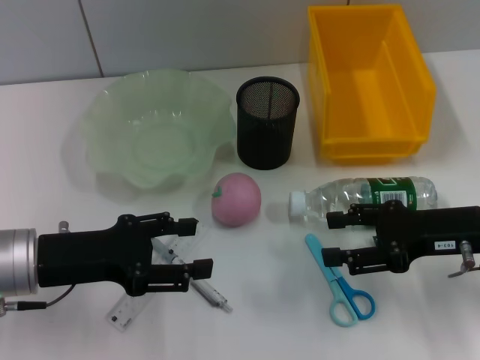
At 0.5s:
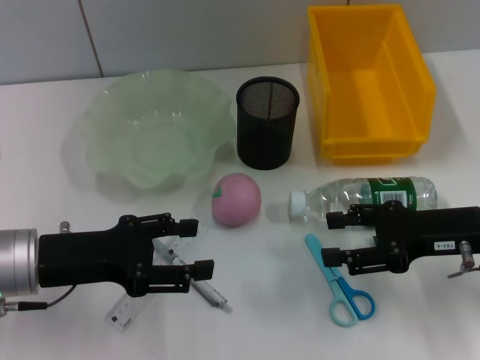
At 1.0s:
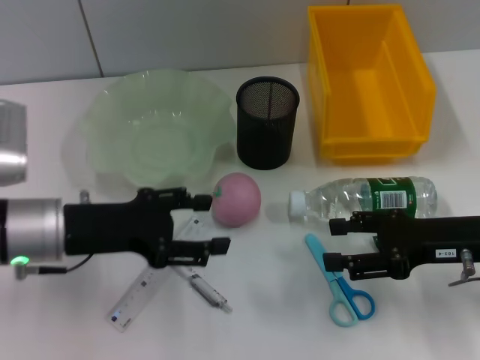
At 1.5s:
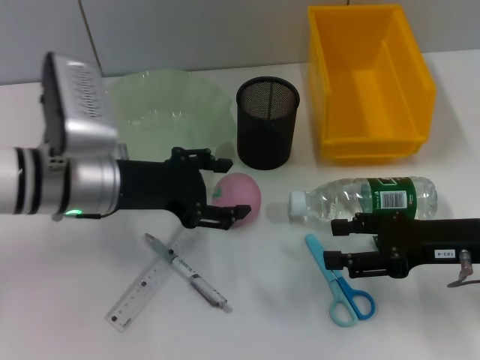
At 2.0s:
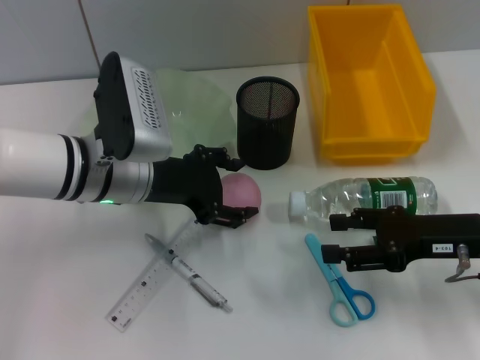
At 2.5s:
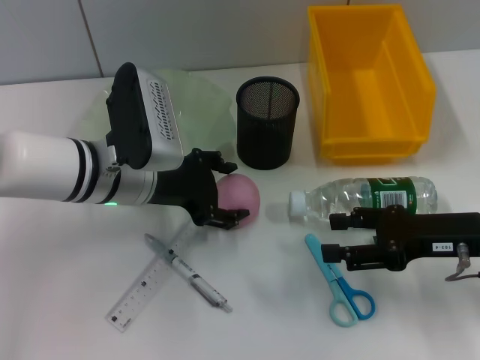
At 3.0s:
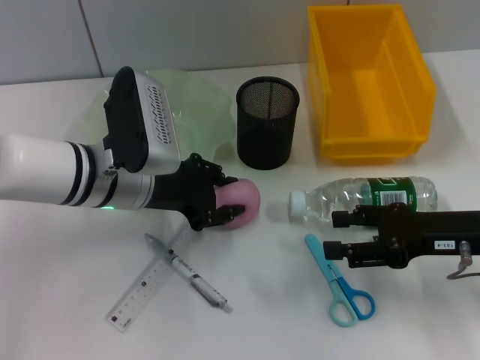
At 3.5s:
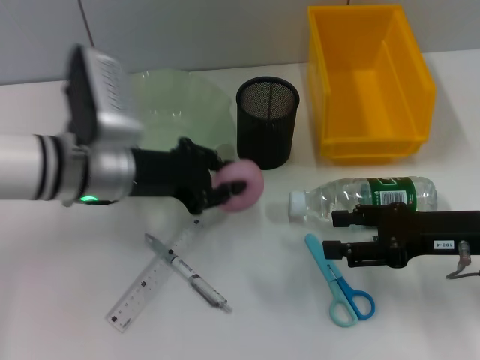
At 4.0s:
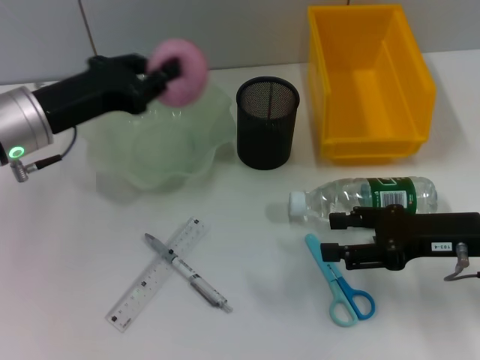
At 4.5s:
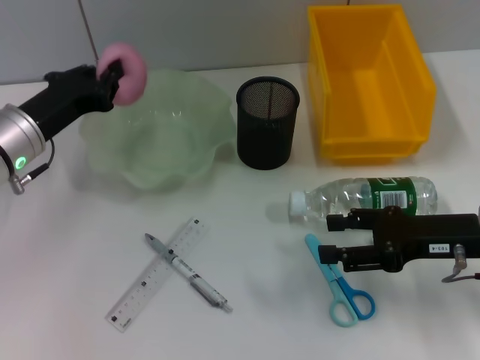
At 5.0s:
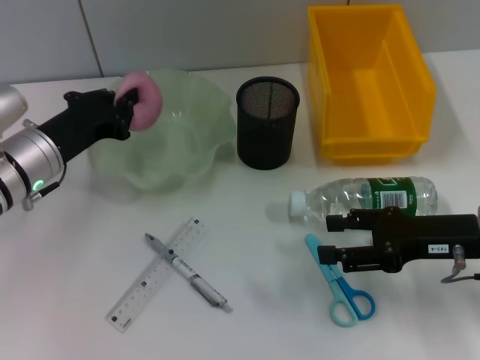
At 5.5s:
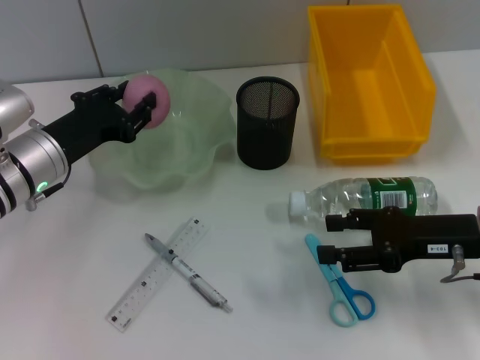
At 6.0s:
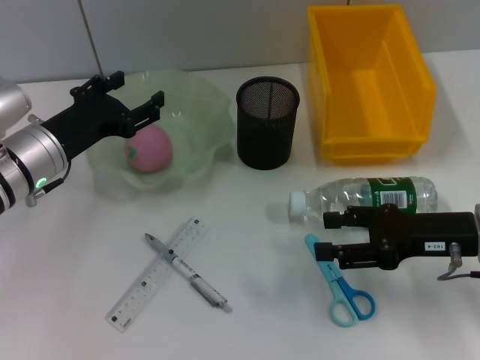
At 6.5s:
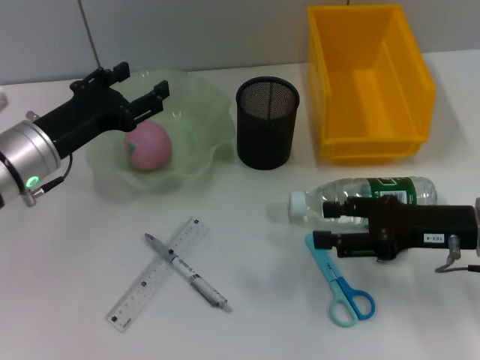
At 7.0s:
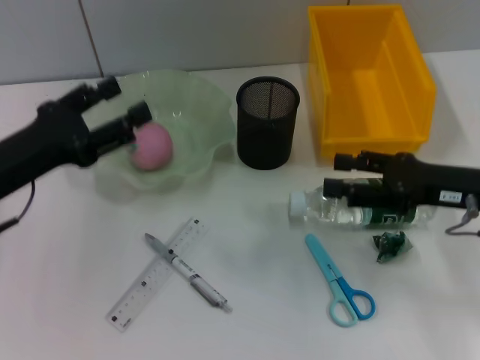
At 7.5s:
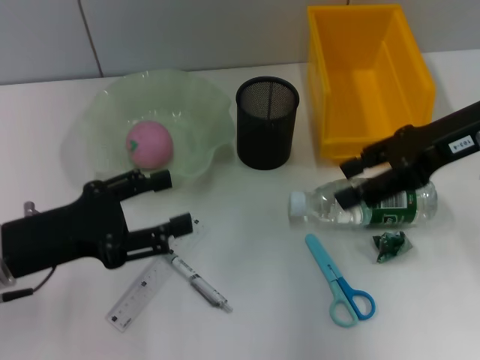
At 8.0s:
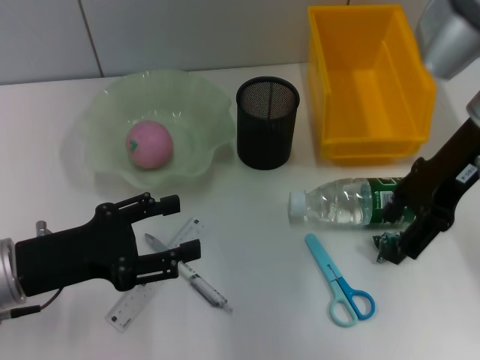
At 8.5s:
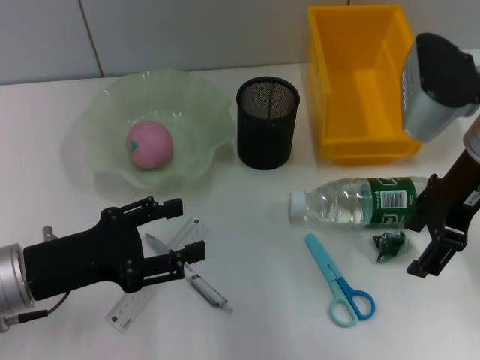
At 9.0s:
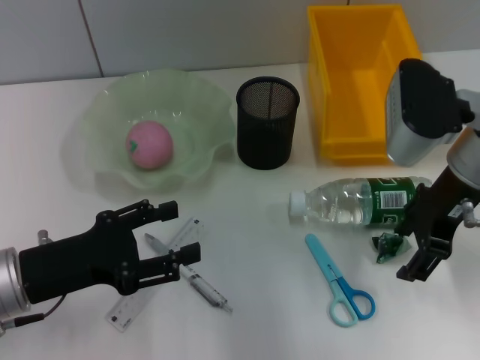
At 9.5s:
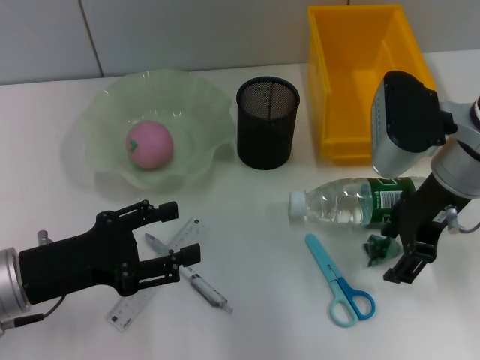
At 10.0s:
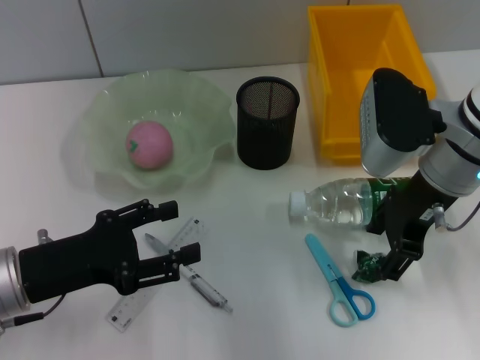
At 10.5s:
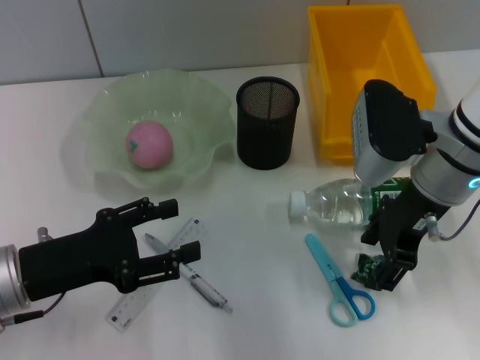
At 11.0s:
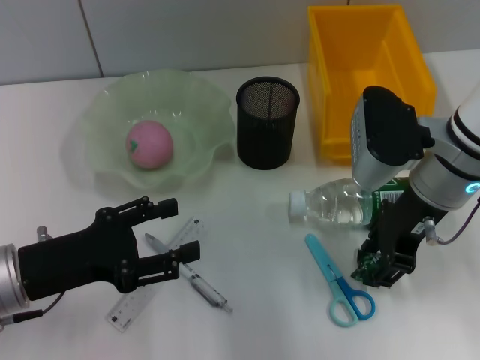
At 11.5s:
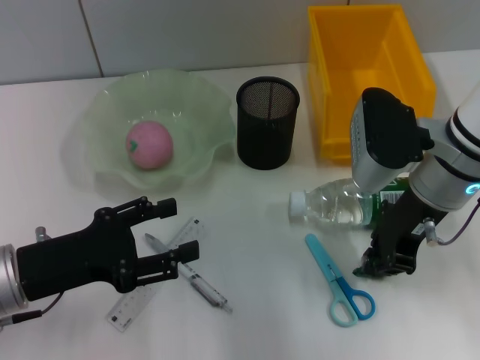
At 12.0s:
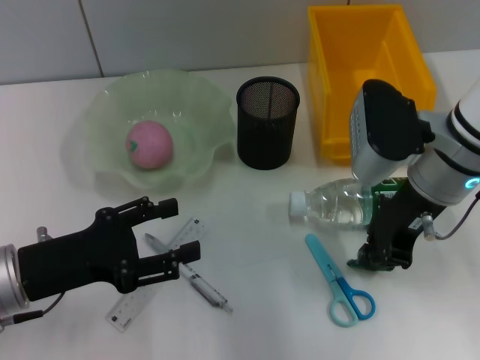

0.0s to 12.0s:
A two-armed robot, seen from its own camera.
Step, 0.0s to 2.5s: Grab the peach with the left hand.
Step, 3.0s to 5.5s: Place the peach into the fruit bowl with the left hand.
Step, 6.0s to 11.5s: Grab the plastic with the right hand.
0.0s to 2.0s: The left gripper goes about 15 cm to the right and forward.
2.0s to 4.0s: The left gripper travels to the left by approximately 10 cm, and closes up.
4.0s to 6.0s: The left gripper travels downward by roughly 5 cm, and opens up.
6.0s to 8.0s: The left gripper travels backward by some 10 cm. Meanwhile the right gripper goes about 15 cm upward and forward.
8.0s to 10.0s: The right gripper travels downward by about 5 cm.
10.0s to 12.0s: The right gripper closes.

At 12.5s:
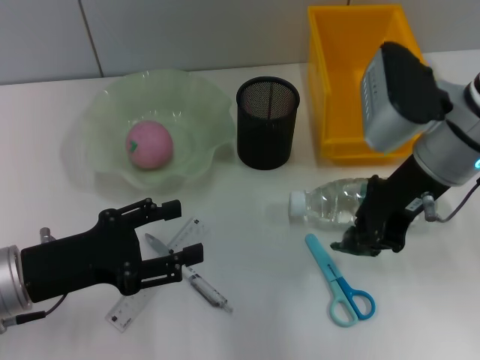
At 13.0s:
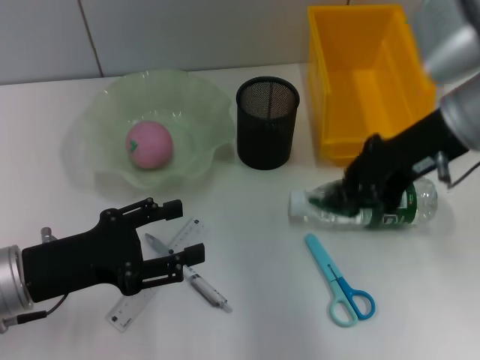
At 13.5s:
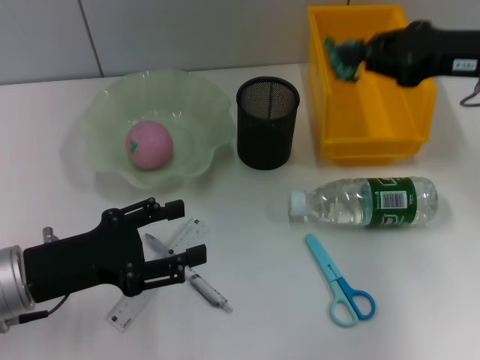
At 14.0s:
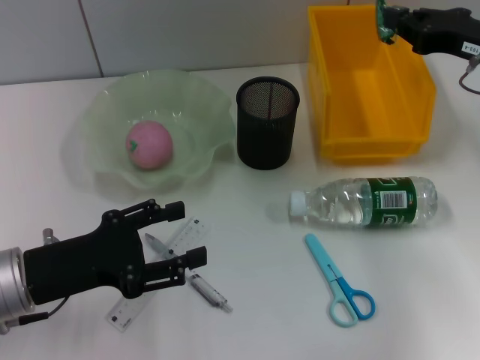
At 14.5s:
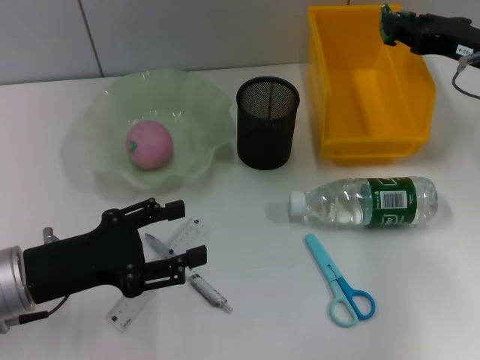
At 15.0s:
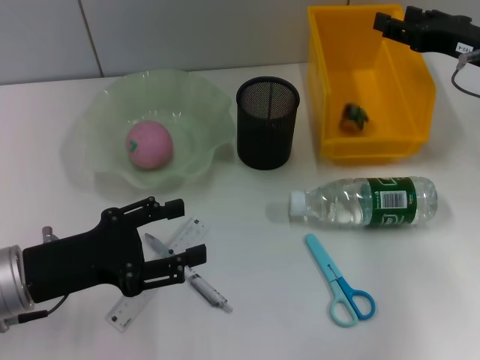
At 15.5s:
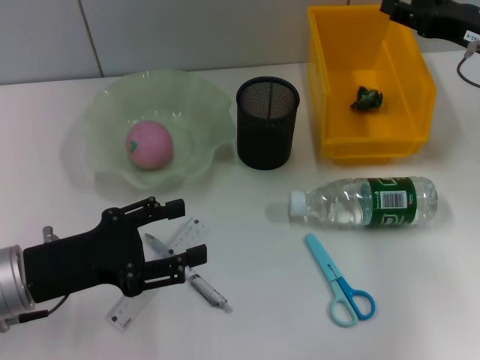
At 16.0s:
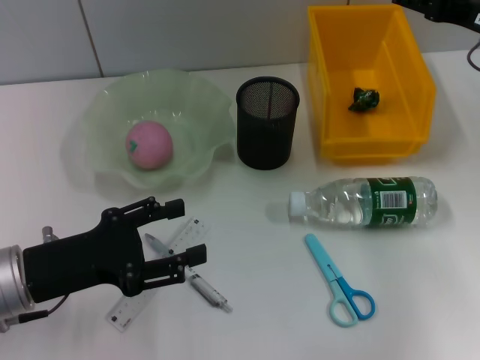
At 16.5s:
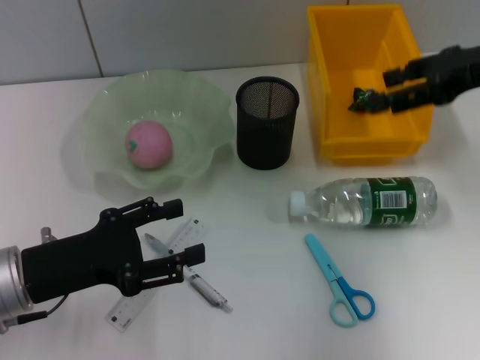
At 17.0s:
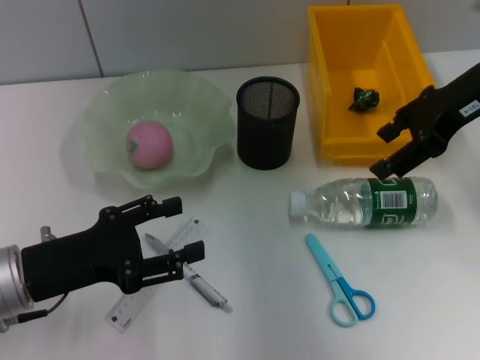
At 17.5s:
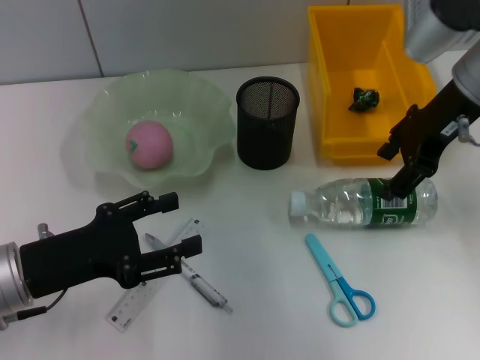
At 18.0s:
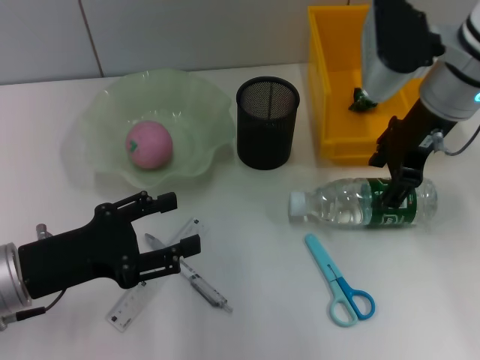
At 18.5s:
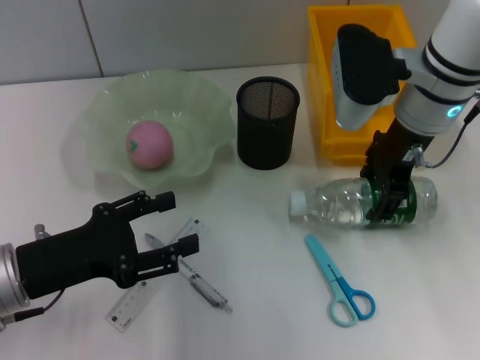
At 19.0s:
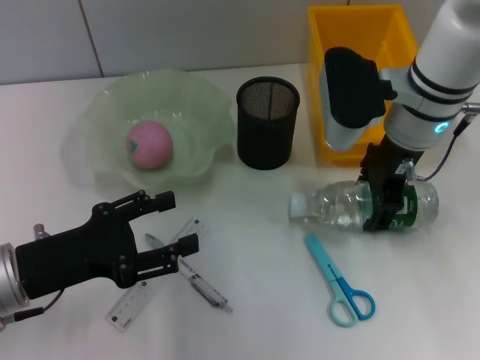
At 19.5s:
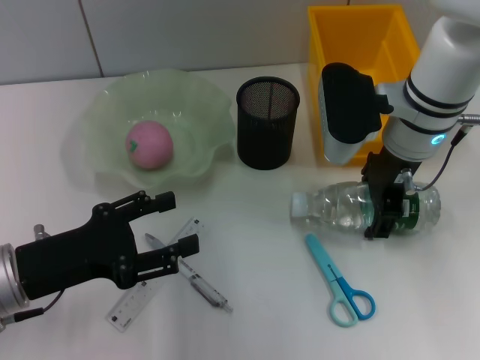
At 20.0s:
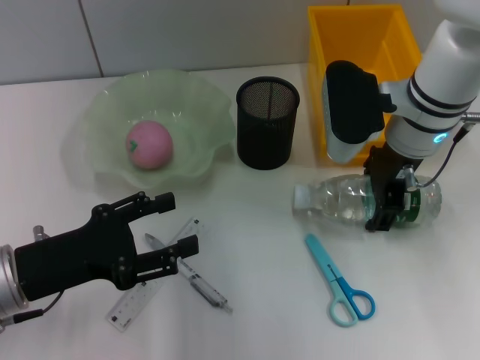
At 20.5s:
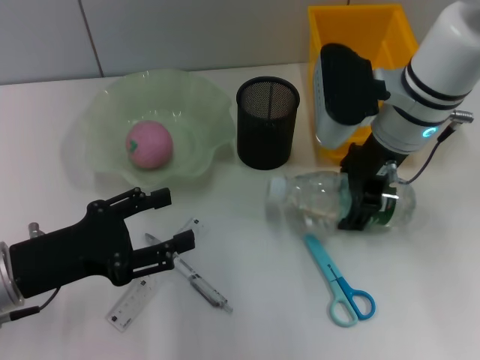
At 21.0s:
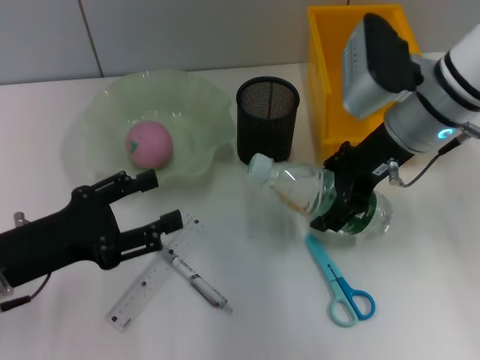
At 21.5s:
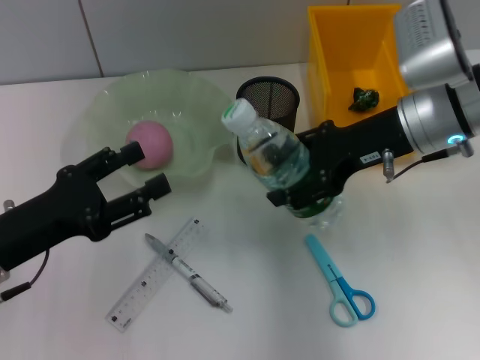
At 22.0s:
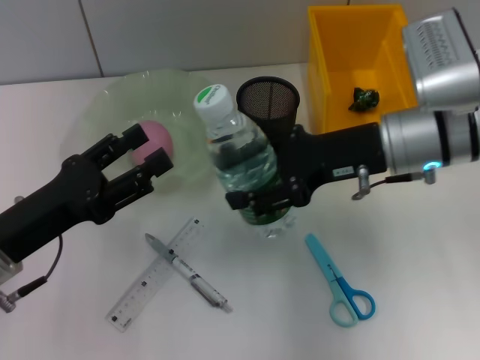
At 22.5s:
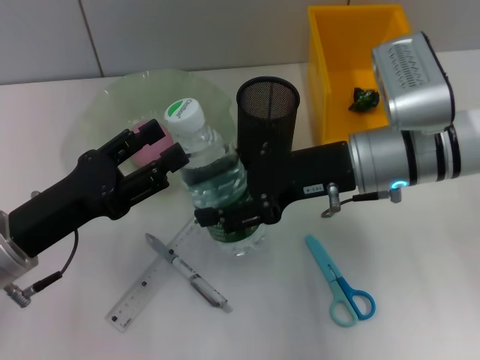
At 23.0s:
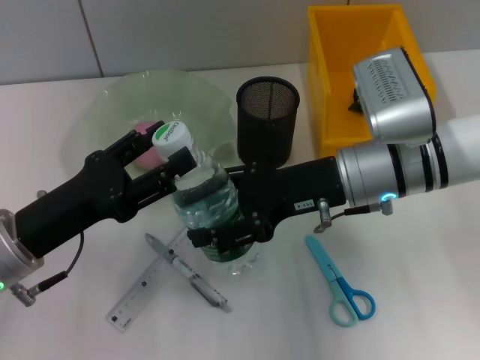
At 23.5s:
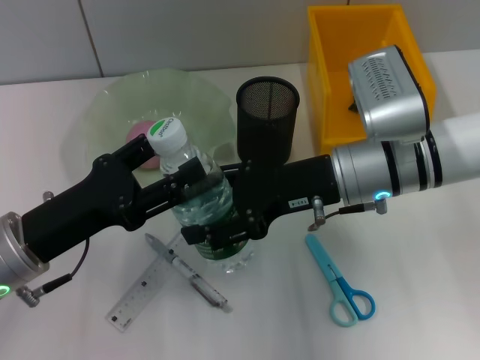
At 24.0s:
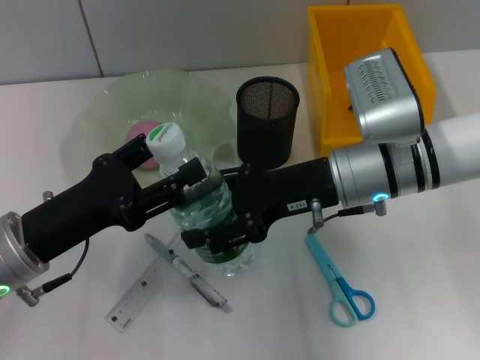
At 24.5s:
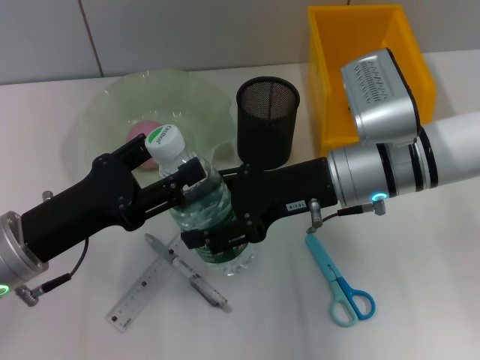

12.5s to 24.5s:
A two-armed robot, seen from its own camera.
Step, 12.5s to 15.0s: Place the plastic into the trash can with the right hand.
Step, 15.5s to 19.5s: Grab the water bottle with the right hand.
12.5s to 14.5s: The right gripper shifts roughly 10 cm to the right.
14.5s to 16.5s: The right gripper shifts some 10 cm upward, and opens its fingers.
16.5s to 18.5s: The right gripper moves to the left, about 15 cm.
18.5s to 20.5s: There are only small adjustments of the grippers.
20.5s to 22.5s: The right gripper moves approximately 5 cm.
22.5s to 24.5s: There are only small adjustments of the grippers.

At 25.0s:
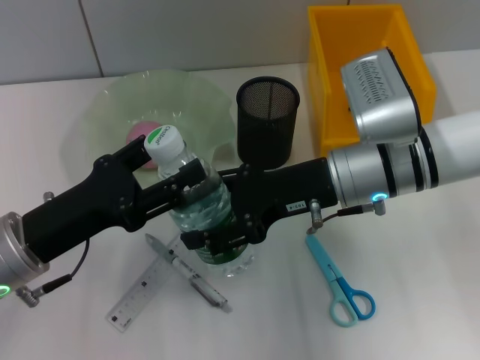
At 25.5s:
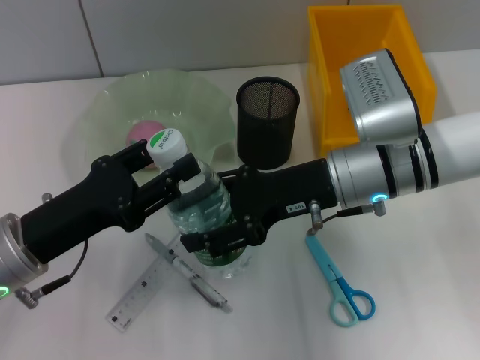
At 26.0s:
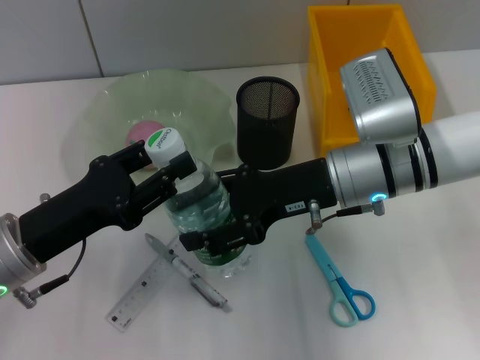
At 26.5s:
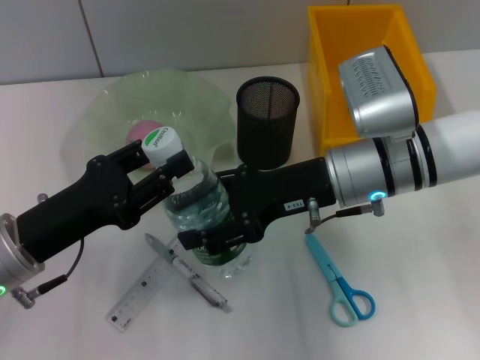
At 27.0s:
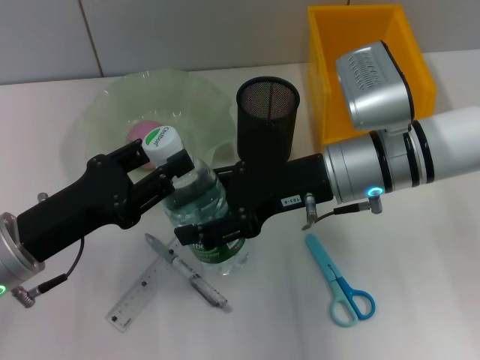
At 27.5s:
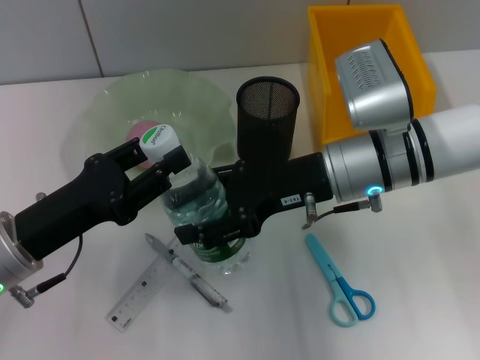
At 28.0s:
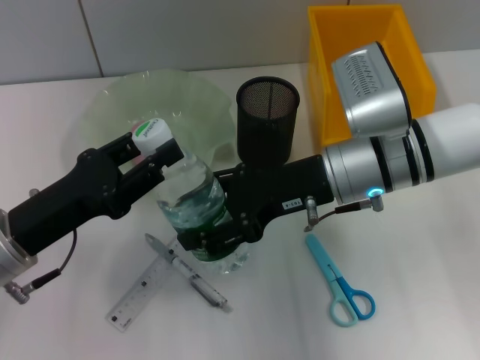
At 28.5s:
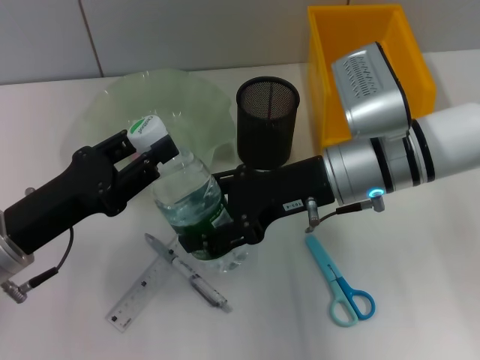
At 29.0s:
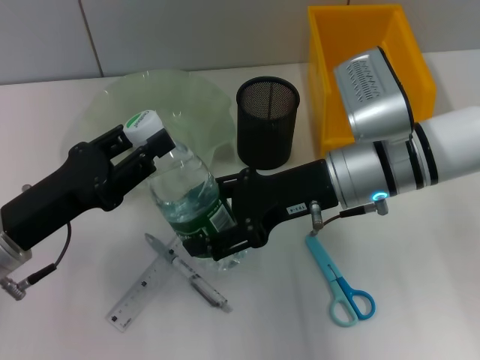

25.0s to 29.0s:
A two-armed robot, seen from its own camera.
25.0s to 27.0s: The left gripper closes up.
27.0s to 29.0s: Both grippers stay about where they are.
